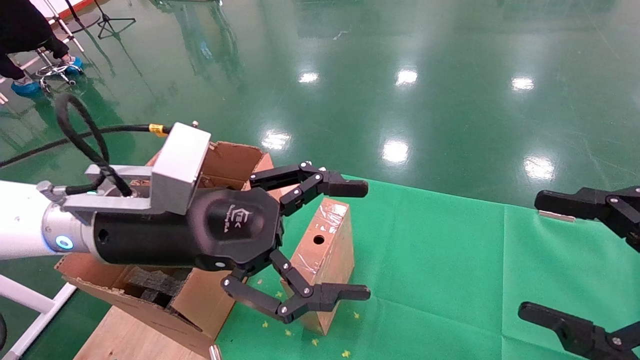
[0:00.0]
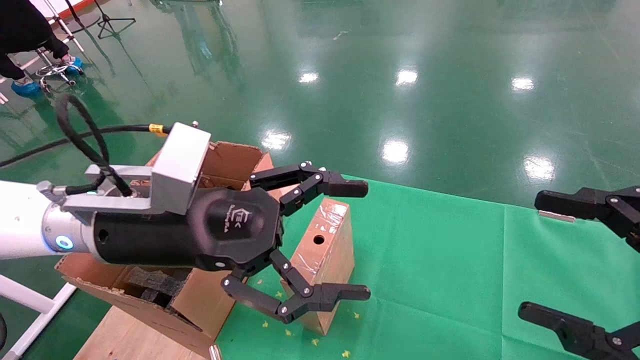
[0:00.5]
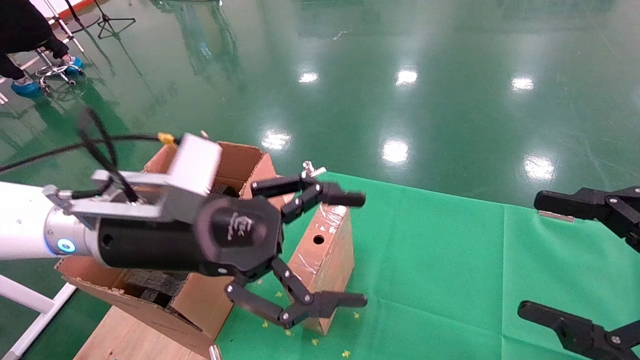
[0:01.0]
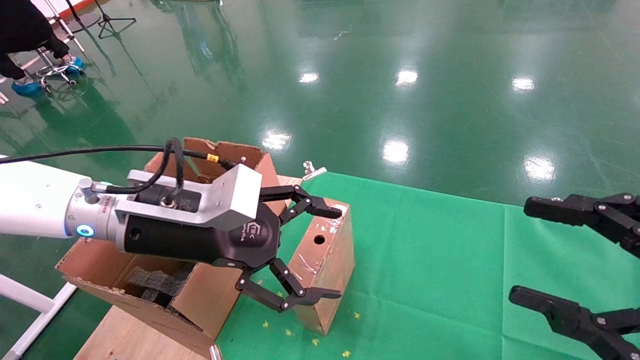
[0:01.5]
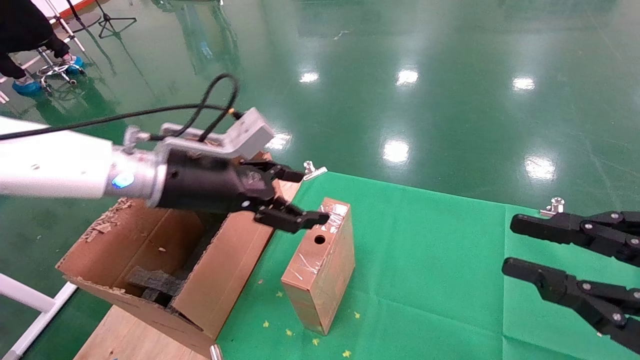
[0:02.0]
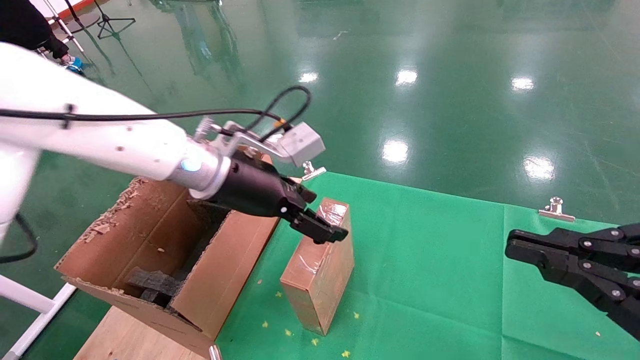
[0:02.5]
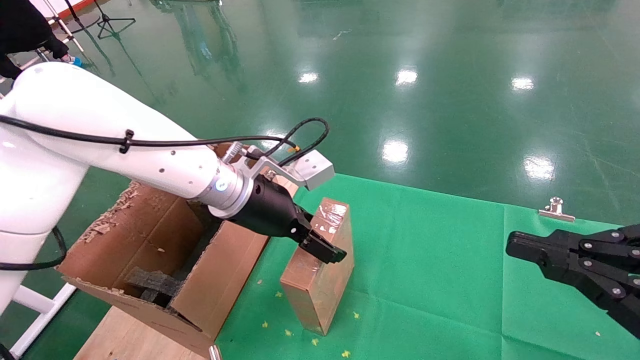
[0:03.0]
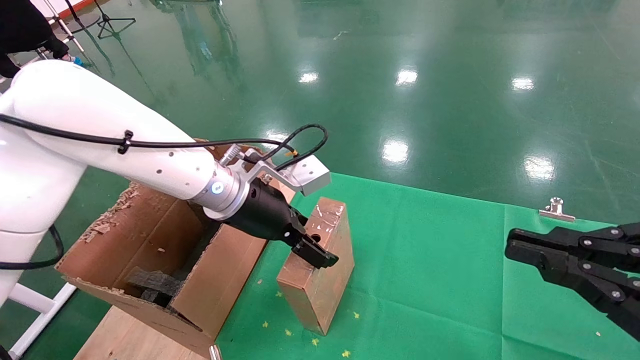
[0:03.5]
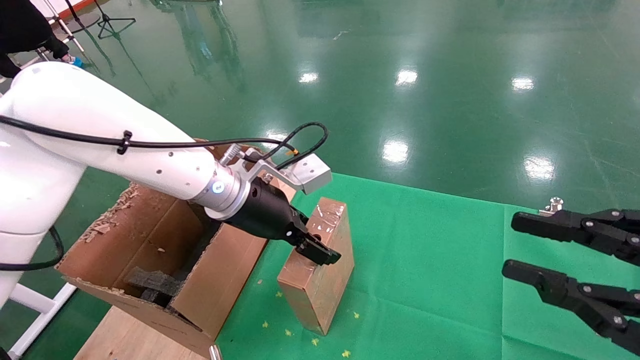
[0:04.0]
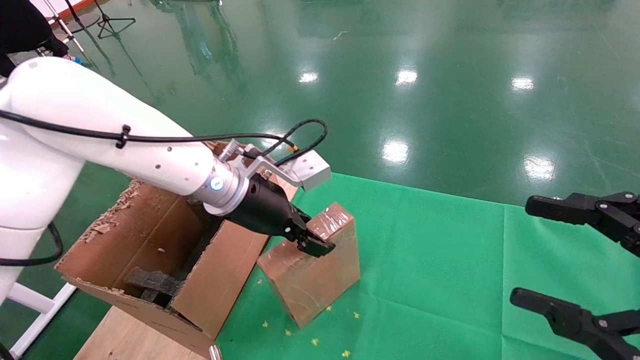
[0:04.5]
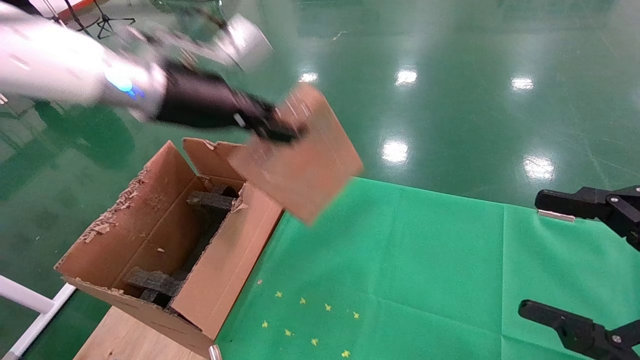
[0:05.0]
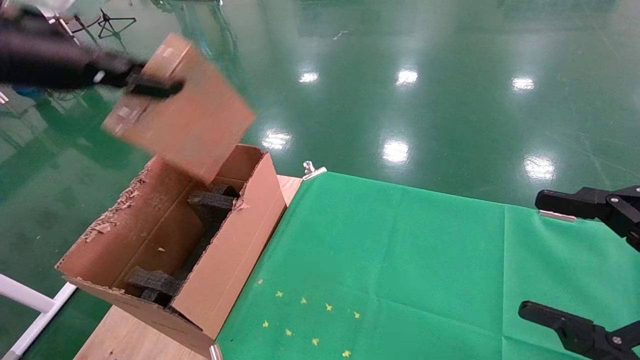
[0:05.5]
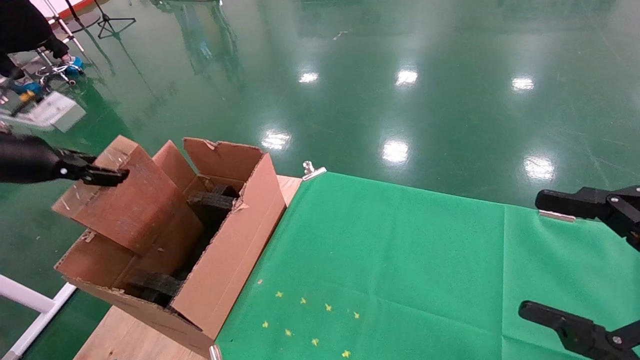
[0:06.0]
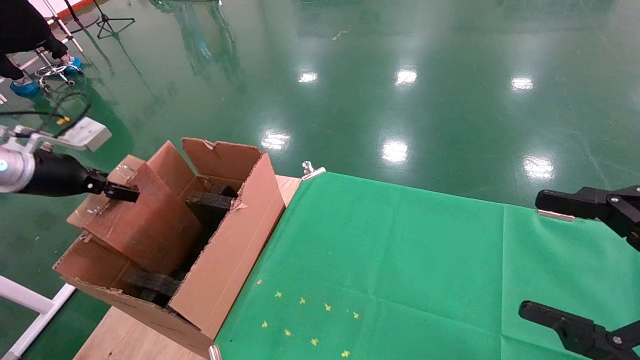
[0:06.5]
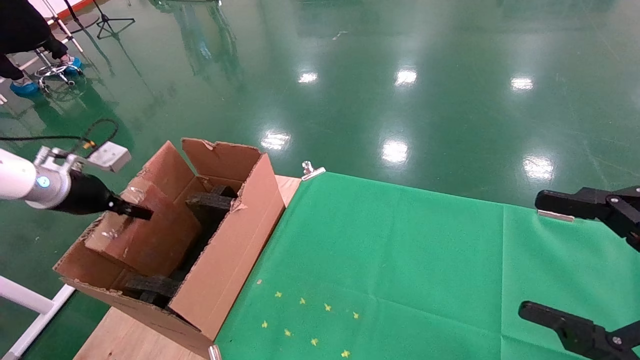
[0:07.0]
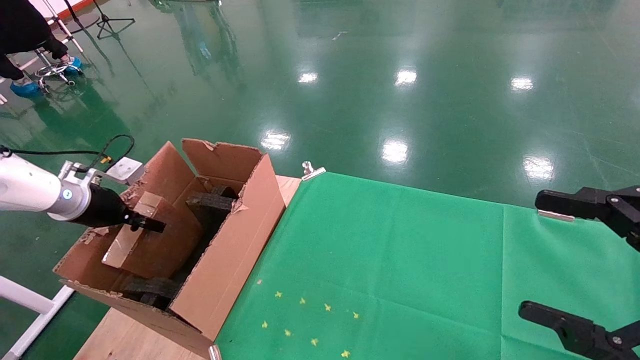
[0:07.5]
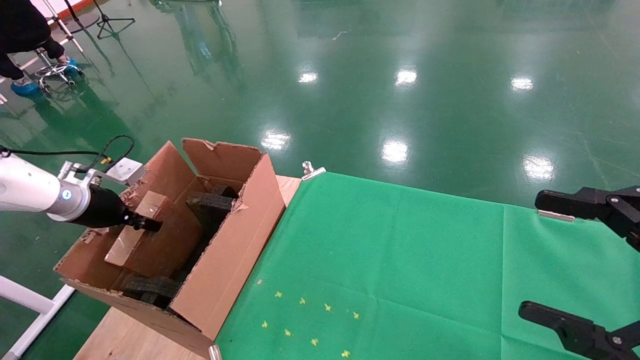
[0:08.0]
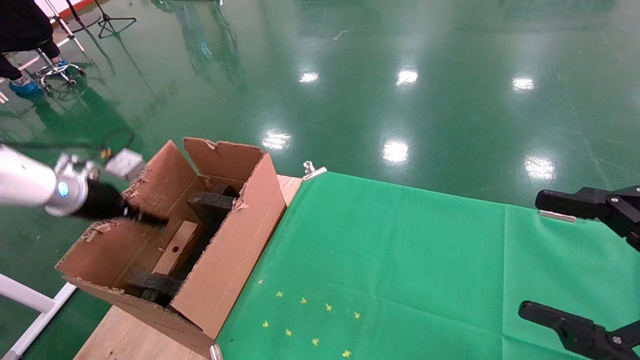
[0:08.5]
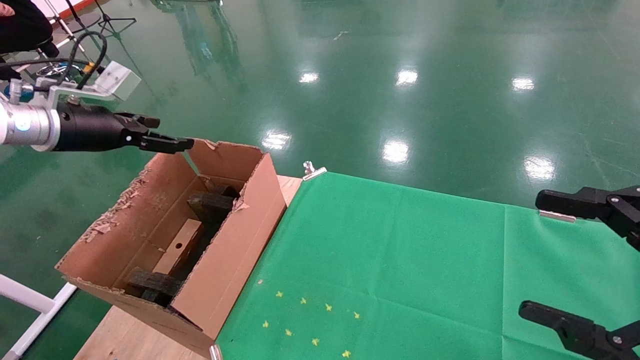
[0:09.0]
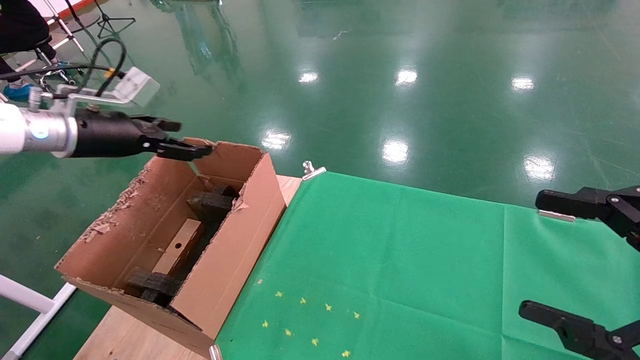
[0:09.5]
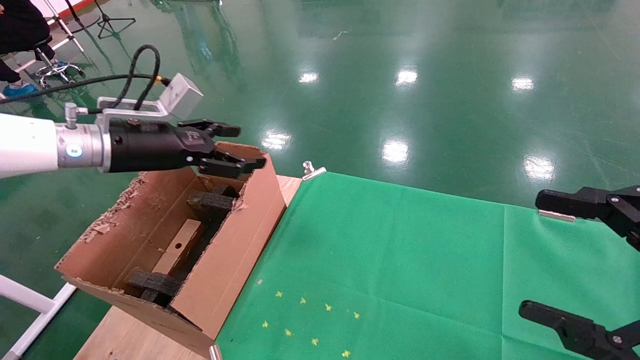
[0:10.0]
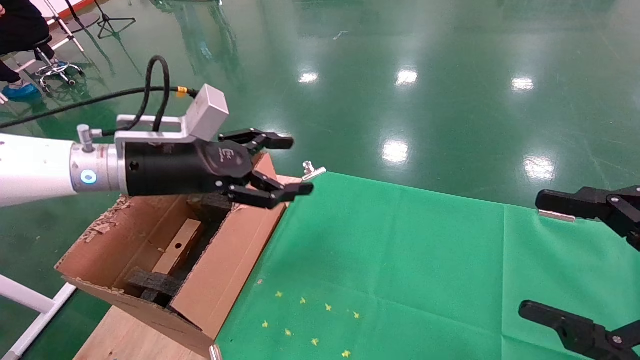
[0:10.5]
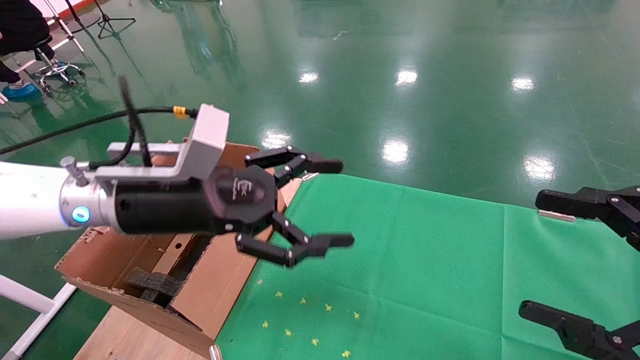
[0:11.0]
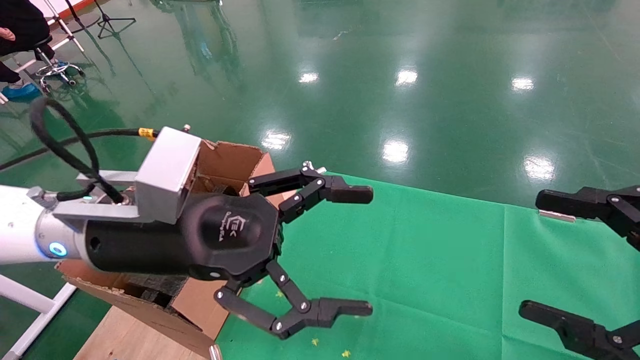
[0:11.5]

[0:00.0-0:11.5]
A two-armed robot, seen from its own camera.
Task of the whole recording: using a robotic arm to pick up a cardboard box and palace it the carton.
Step, 0:01.5 to 0:04.5: Pick up the mouse and the power cord paper box.
Step, 0:05.0 to 0:08.0: Place the mouse and the power cord paper box into the container.
0:00.0 to 0:02.0: The right gripper closes. Meanwhile the left gripper shifts about 10 cm forward.
0:02.0 to 0:04.0: The left gripper goes some 5 cm to the right.
0:04.0 to 0:06.0: The right gripper opens up. The left gripper is displaced to the left by approximately 35 cm, and closes up.
0:06.0 to 0:07.5: The left gripper shifts roughly 15 cm downward and forward.
0:07.5 to 0:09.5: The left gripper shifts some 15 cm upward and to the right, and opens up.
0:09.5 to 0:11.5: The left gripper goes roughly 25 cm to the right and backward.

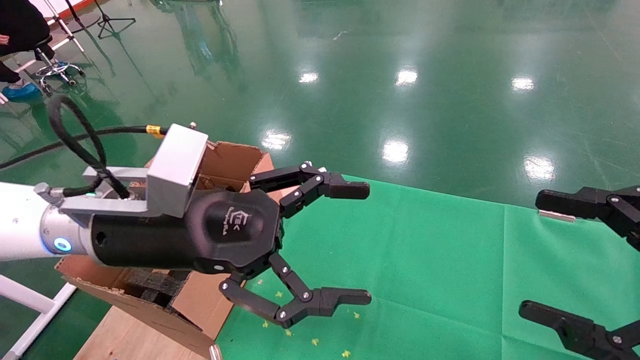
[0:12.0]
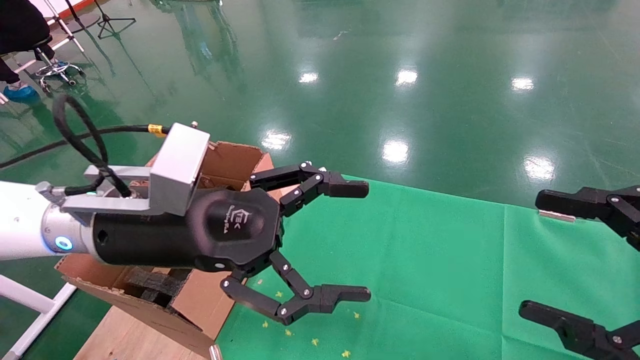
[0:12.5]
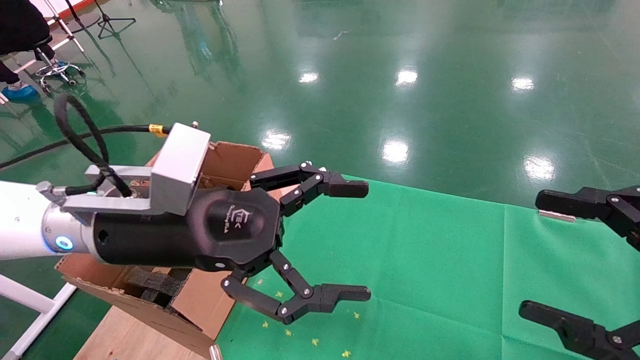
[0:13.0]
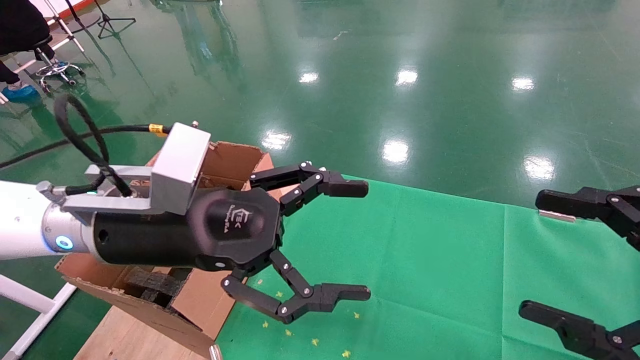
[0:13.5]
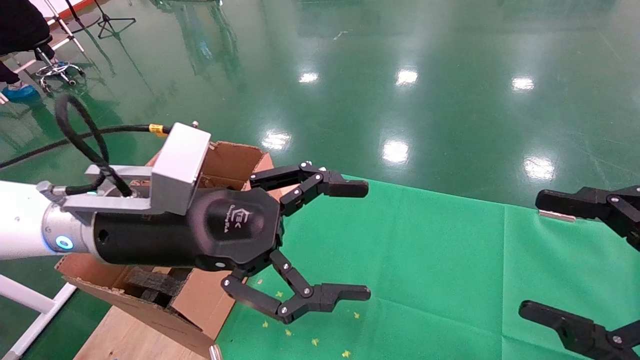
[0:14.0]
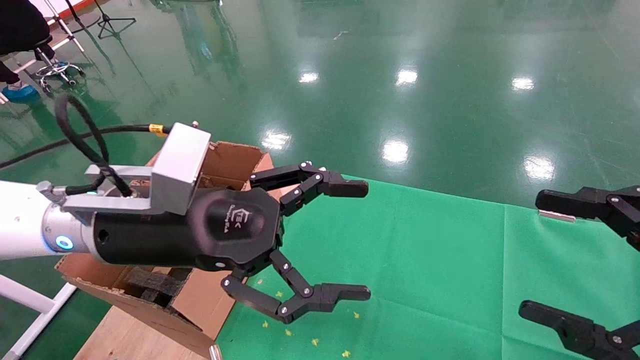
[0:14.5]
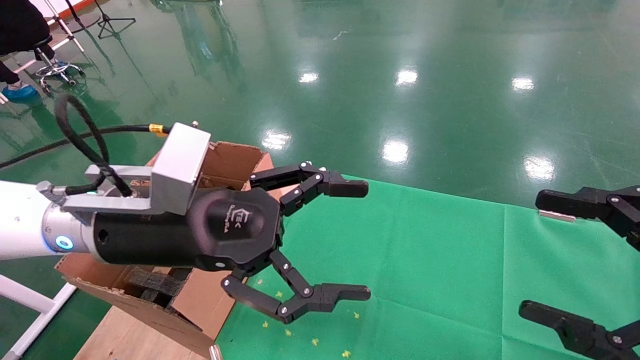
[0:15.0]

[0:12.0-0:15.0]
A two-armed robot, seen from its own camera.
Task of the whole recording: using a robotic arm to pick up a cardboard box and palace it the carton.
0:12.0 to 0:15.0: Neither gripper changes place.
